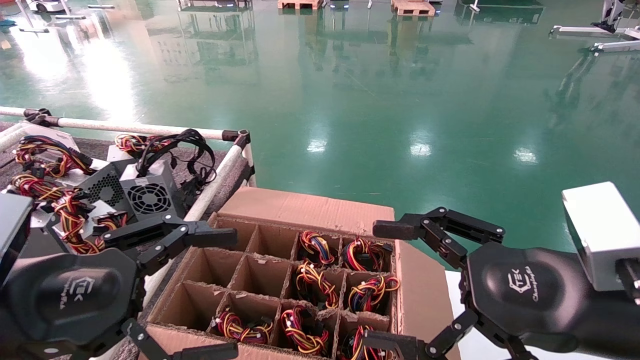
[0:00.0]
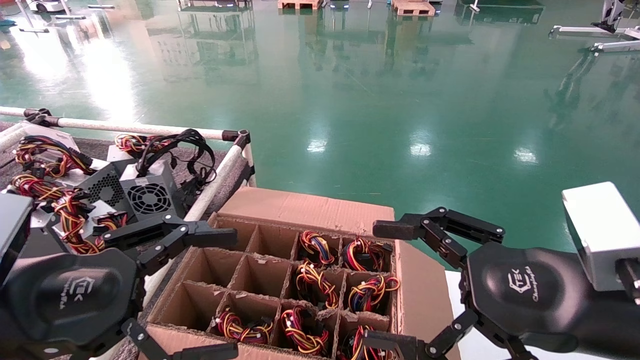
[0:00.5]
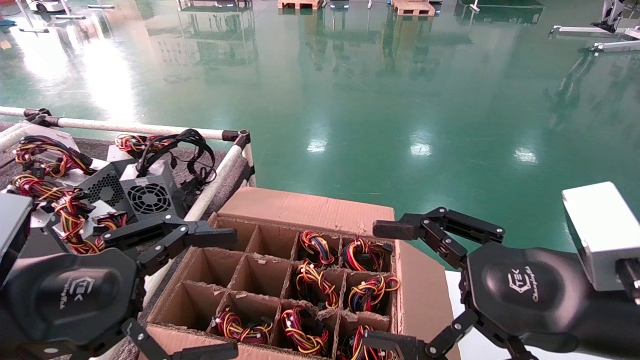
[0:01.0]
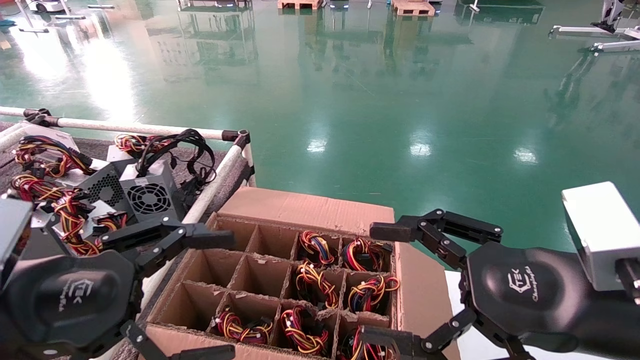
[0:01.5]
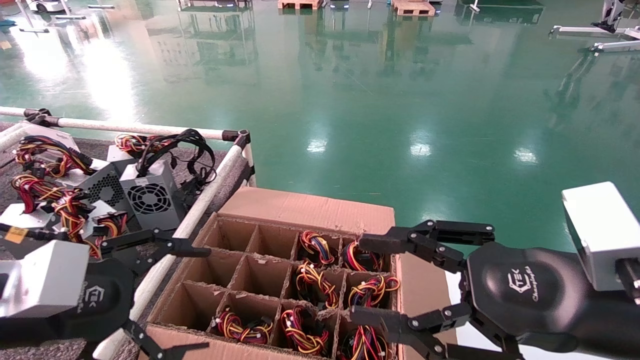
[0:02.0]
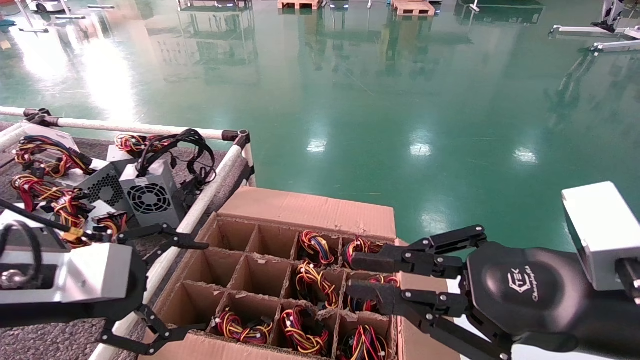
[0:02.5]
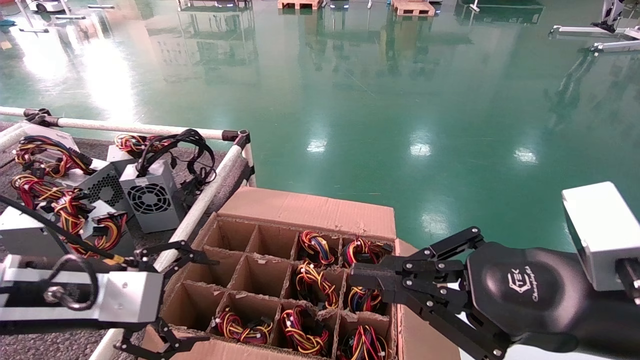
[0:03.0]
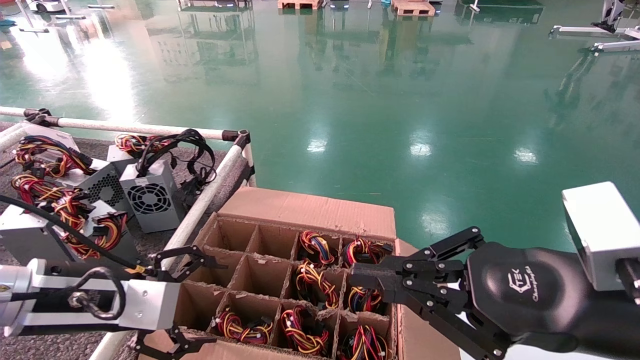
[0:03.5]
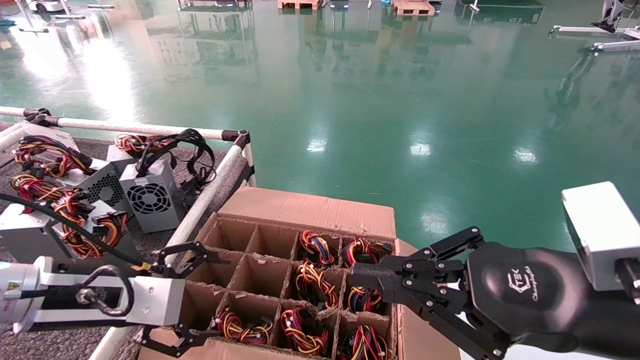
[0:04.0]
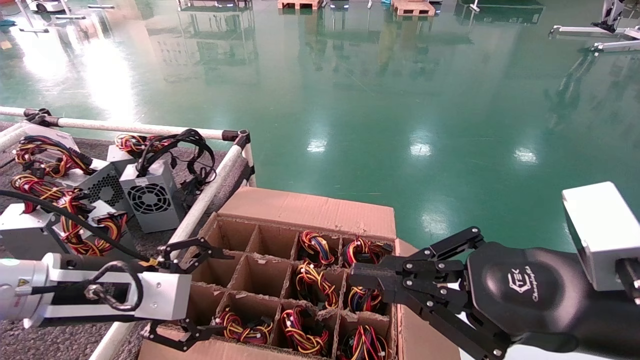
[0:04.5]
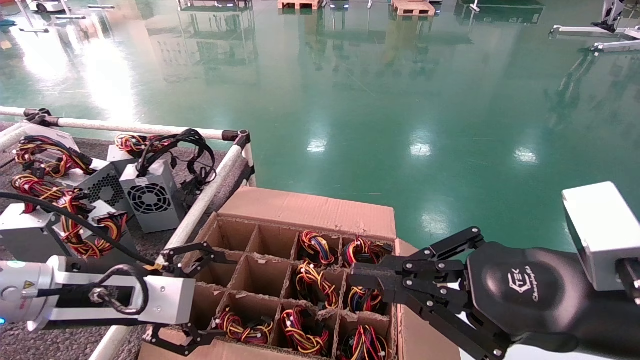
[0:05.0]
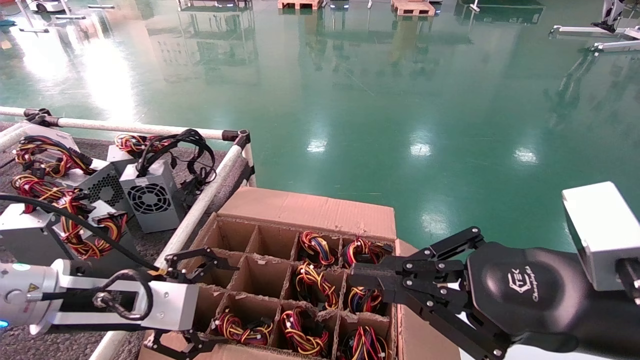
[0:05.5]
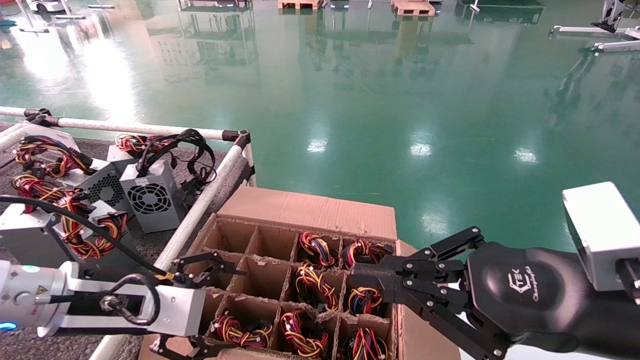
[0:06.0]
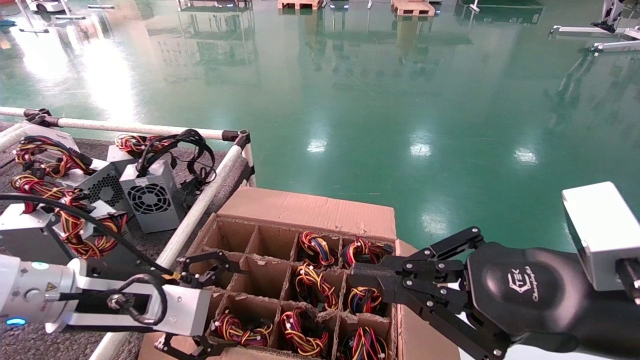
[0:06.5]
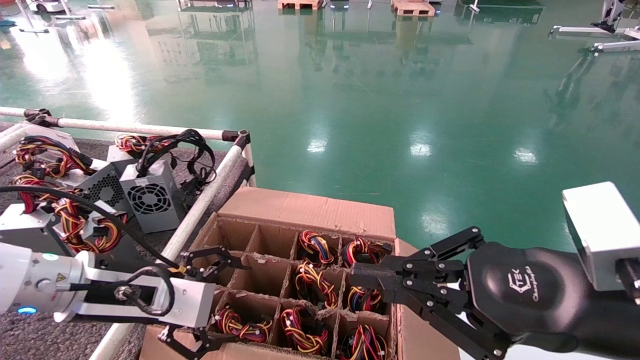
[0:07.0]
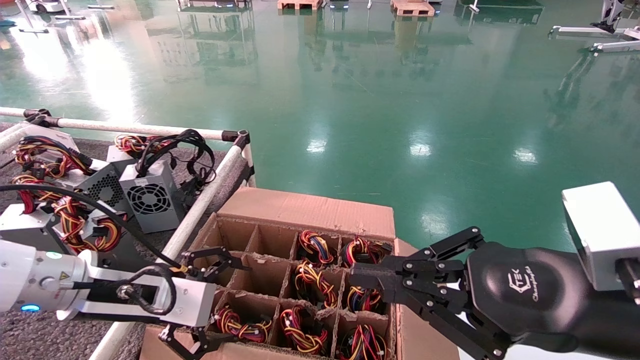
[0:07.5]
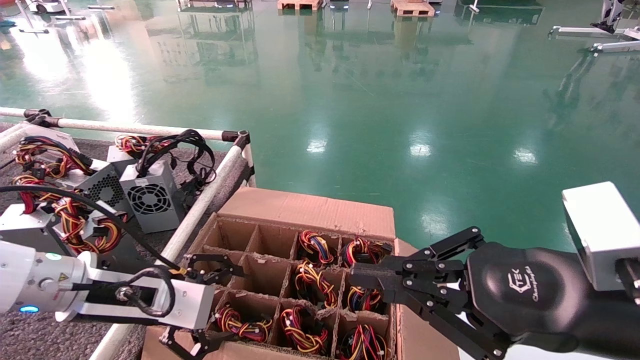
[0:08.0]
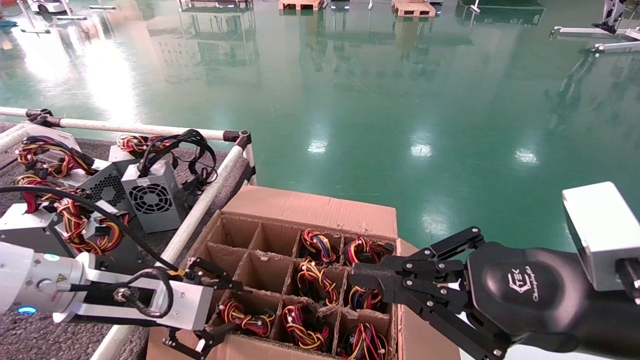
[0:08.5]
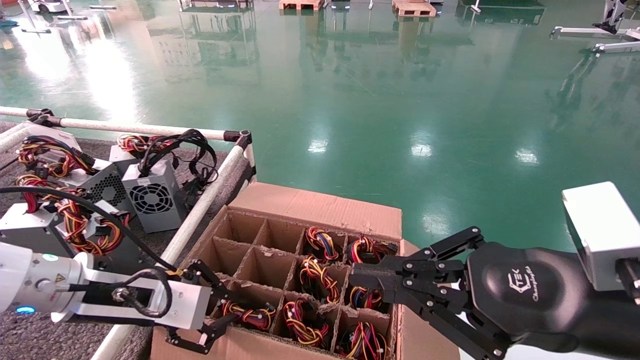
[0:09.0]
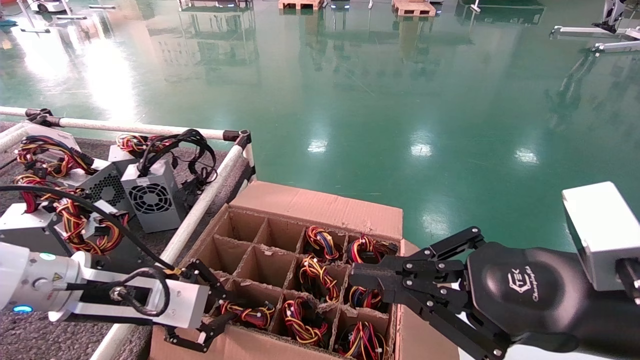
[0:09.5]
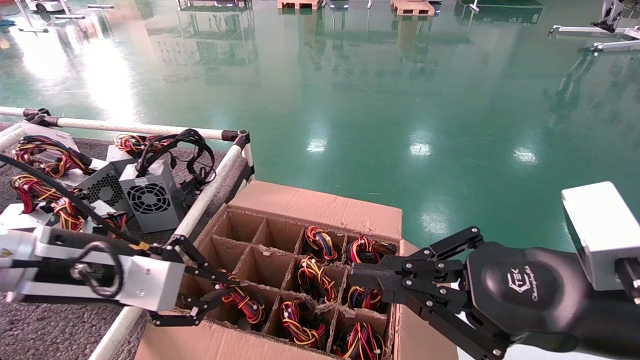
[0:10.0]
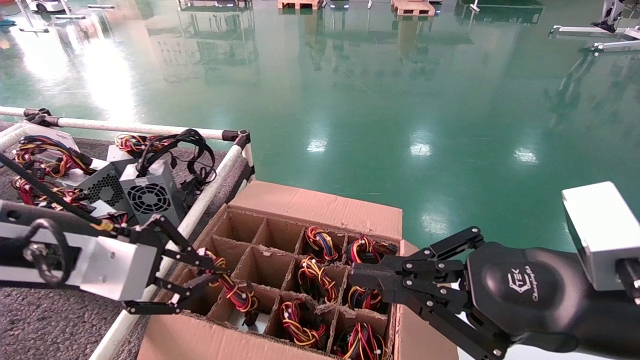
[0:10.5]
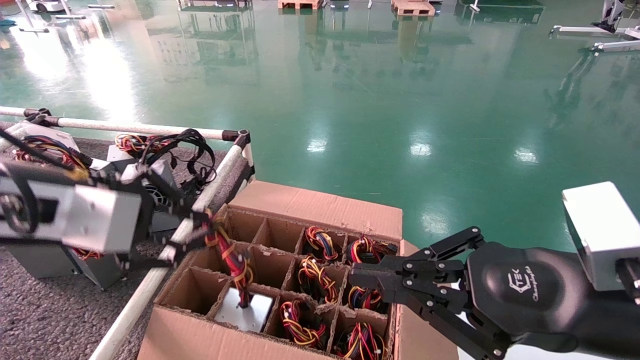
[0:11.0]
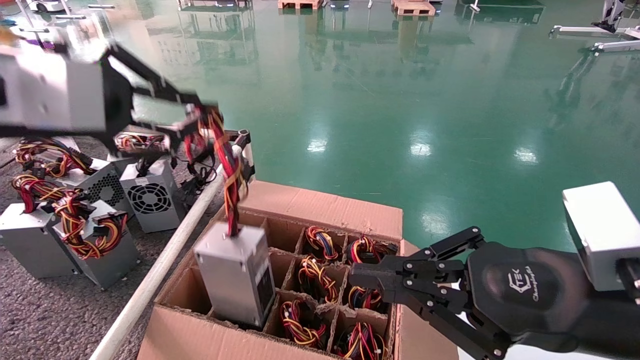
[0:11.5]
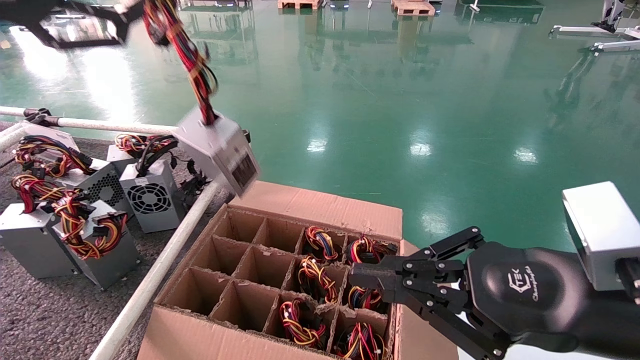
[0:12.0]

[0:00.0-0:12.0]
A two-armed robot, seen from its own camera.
Step, 0:00.0 to 0:09.0: Grasp the battery.
0:02.0 to 0:04.0: The left gripper travels forward by approximately 5 cm. Meanwhile the right gripper closes its fingers.
0:04.0 to 0:08.0: The grippers stay close to where they were, moving slightly.
0:08.0 to 0:10.0: The left gripper heads upward, covering approximately 5 cm, and closes.
0:10.0 to 0:12.0: The left gripper goes some 25 cm upward.

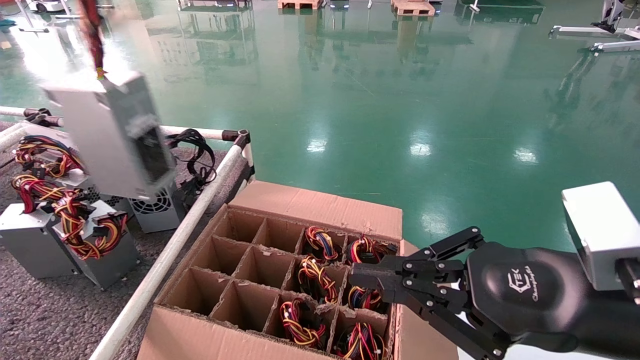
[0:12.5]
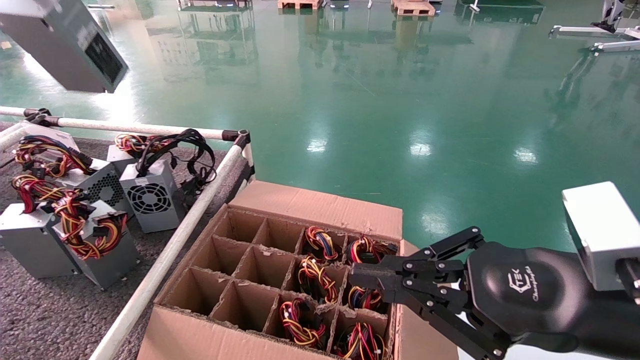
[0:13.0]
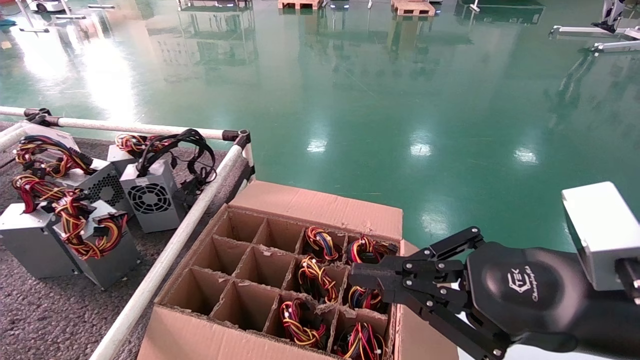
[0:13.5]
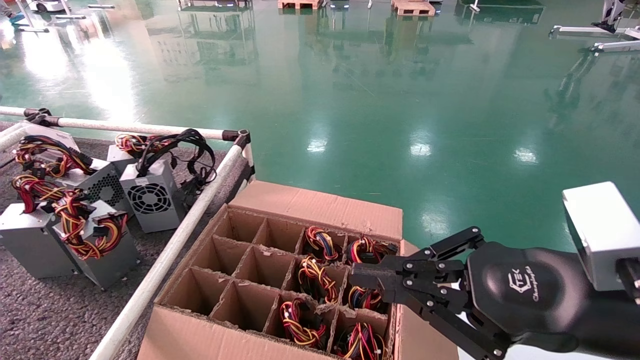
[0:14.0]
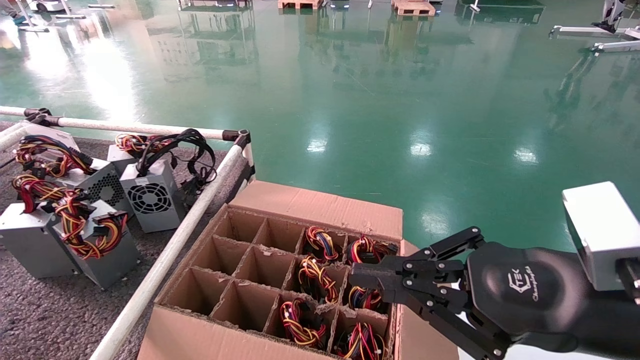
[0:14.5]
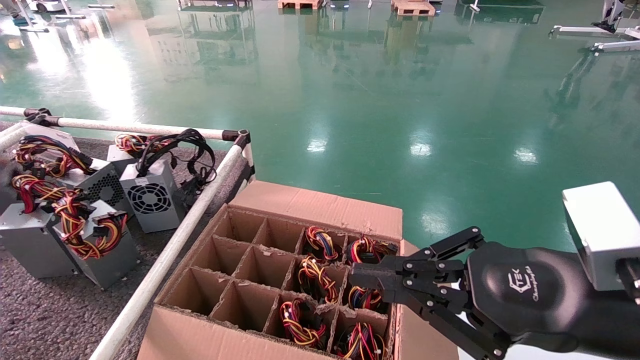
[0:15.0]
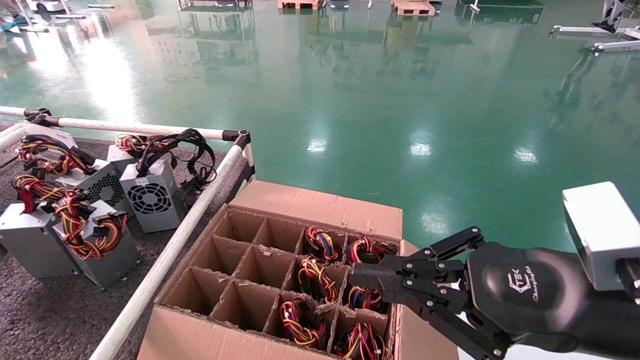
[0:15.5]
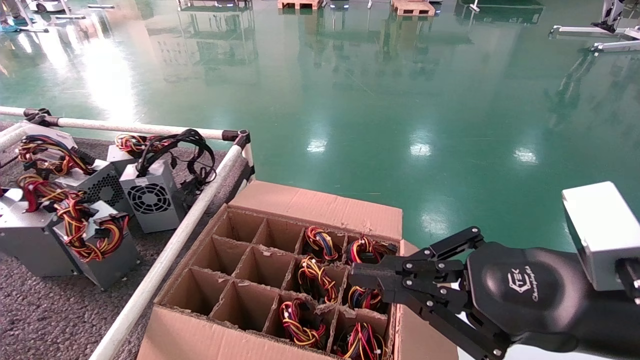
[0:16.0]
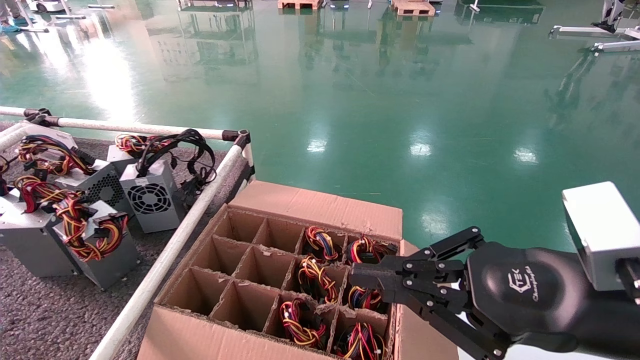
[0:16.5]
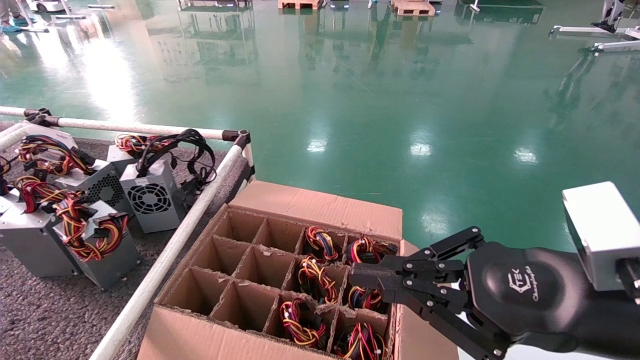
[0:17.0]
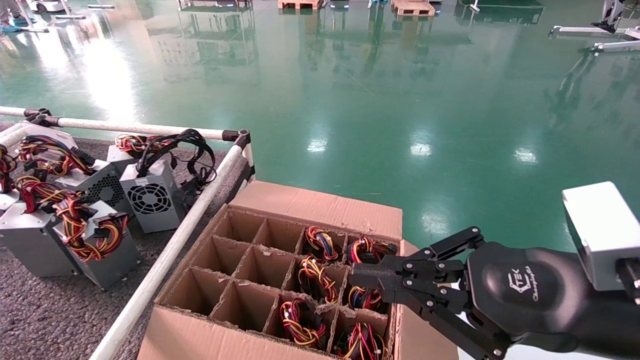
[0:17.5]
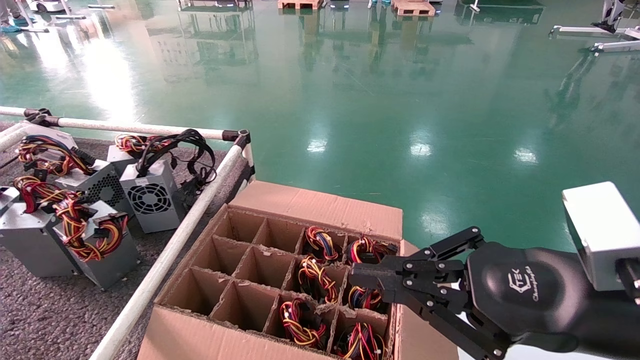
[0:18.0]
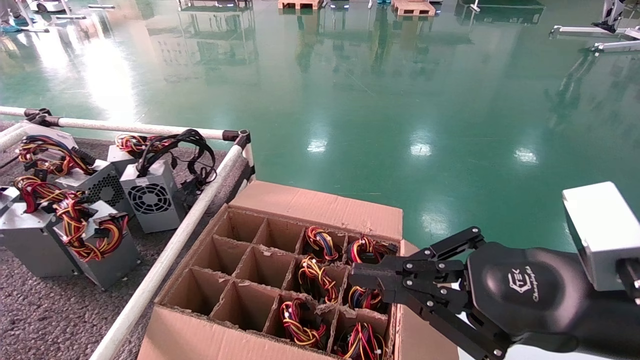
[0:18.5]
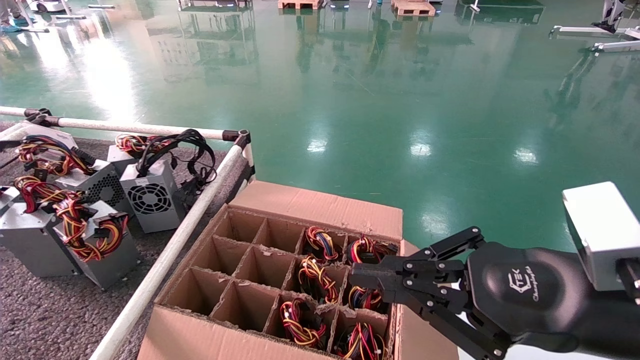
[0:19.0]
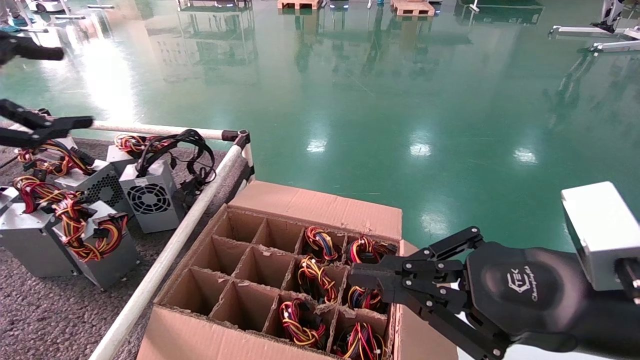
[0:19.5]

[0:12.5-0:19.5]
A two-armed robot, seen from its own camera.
Step, 0:12.5 to 0:18.5: Place the battery on the shelf.
0:12.5 to 0:14.5: The left gripper travels to the left by approximately 20 cm.
0:14.5 to 0:16.0: The left gripper is displaced downward and forward by approximately 10 cm.
0:16.0 to 0:17.5: The grippers stay close to where they were, moving slightly.
0:17.5 to 0:19.5: The left gripper moves to the right, roughly 15 cm, and opens.
